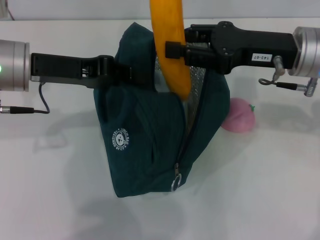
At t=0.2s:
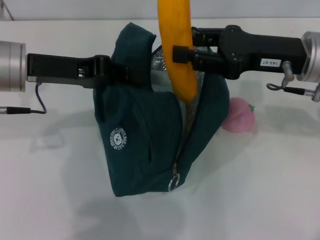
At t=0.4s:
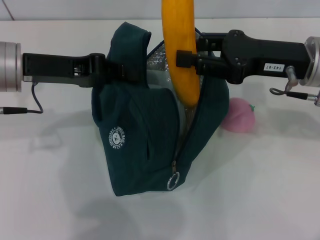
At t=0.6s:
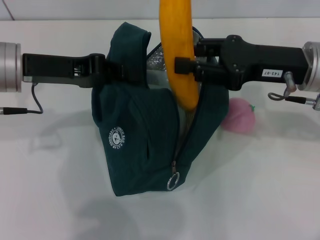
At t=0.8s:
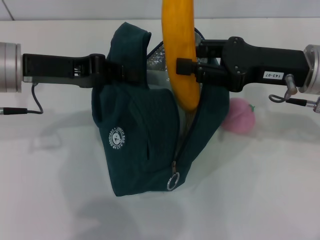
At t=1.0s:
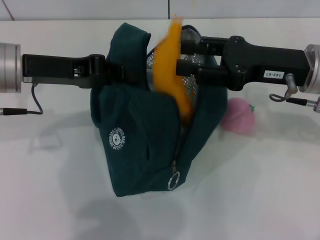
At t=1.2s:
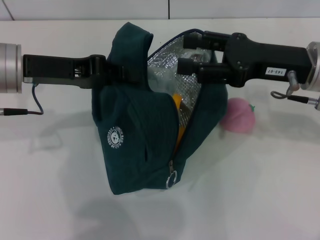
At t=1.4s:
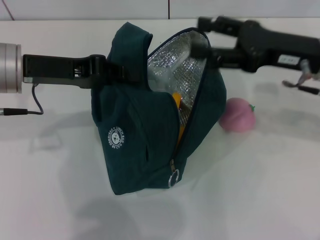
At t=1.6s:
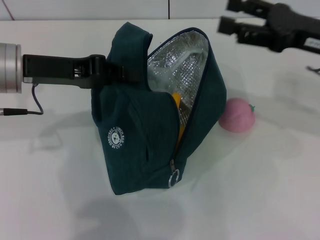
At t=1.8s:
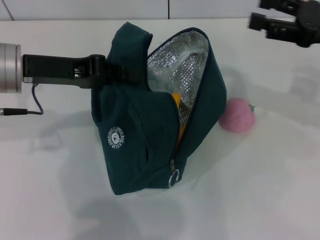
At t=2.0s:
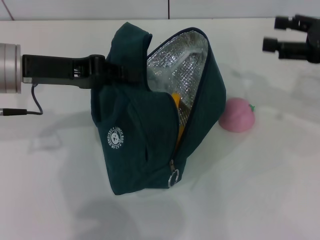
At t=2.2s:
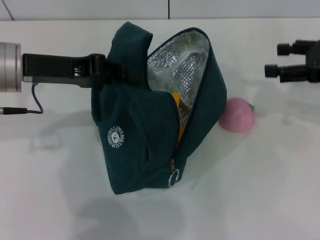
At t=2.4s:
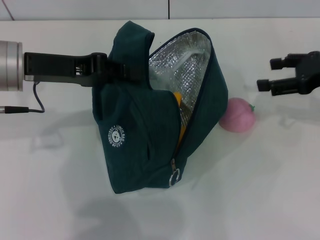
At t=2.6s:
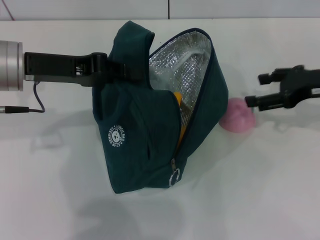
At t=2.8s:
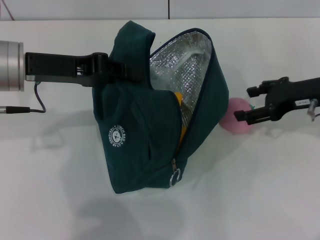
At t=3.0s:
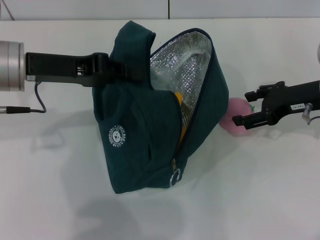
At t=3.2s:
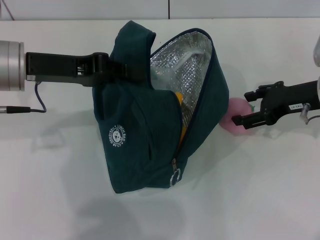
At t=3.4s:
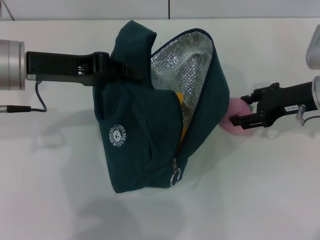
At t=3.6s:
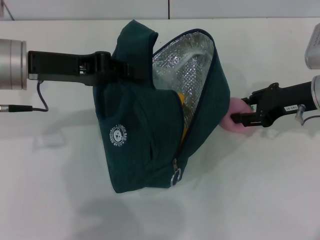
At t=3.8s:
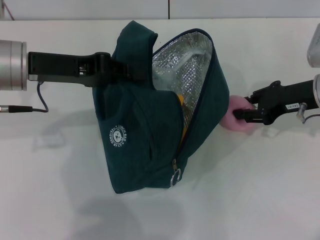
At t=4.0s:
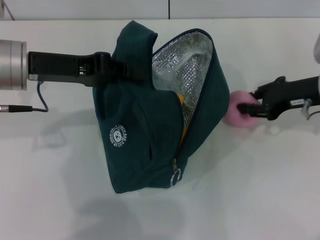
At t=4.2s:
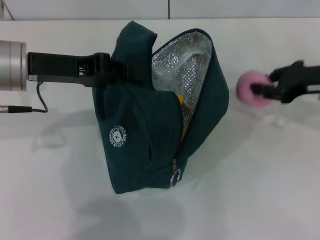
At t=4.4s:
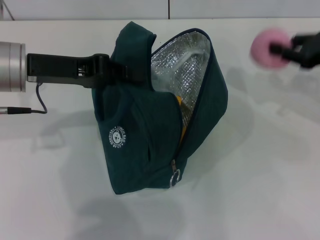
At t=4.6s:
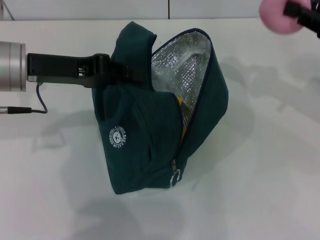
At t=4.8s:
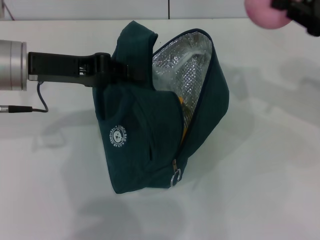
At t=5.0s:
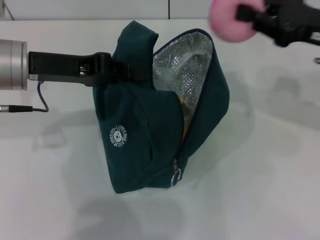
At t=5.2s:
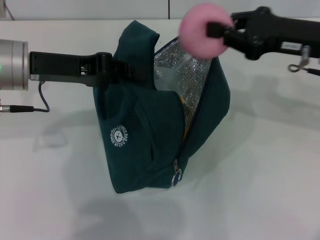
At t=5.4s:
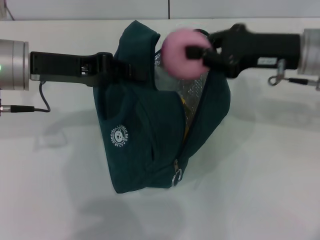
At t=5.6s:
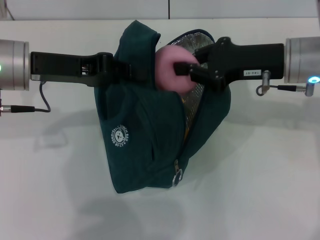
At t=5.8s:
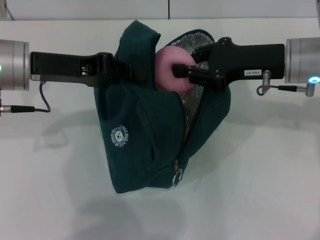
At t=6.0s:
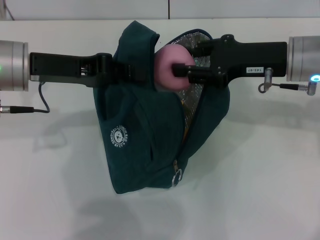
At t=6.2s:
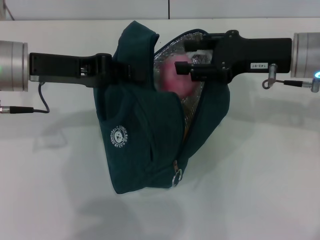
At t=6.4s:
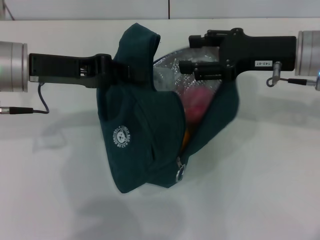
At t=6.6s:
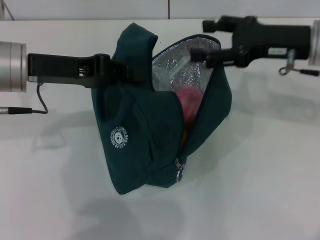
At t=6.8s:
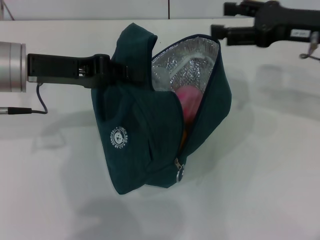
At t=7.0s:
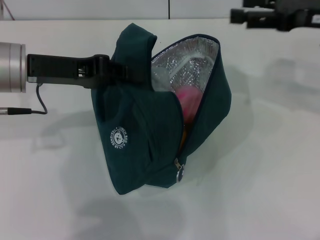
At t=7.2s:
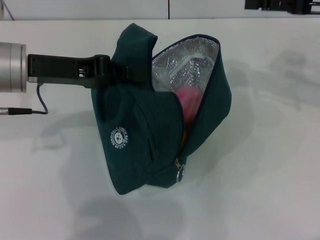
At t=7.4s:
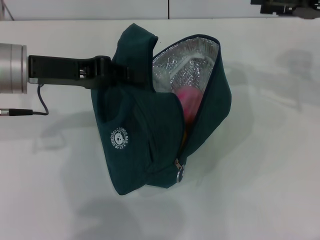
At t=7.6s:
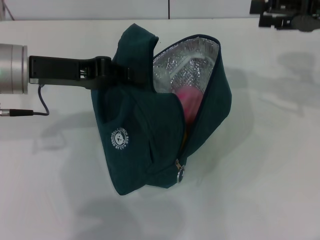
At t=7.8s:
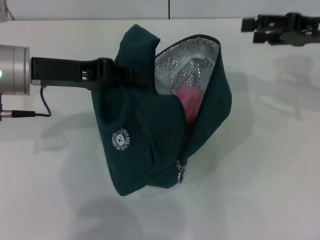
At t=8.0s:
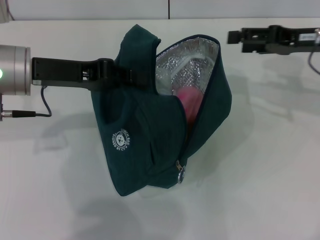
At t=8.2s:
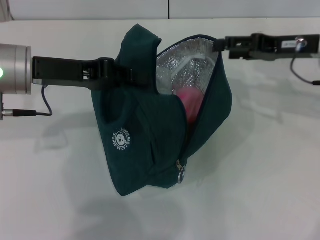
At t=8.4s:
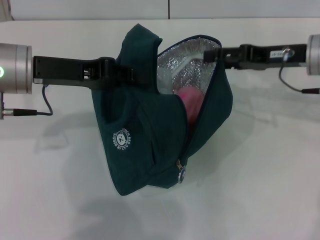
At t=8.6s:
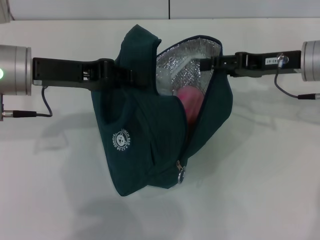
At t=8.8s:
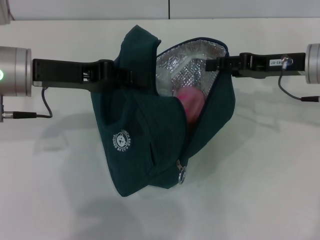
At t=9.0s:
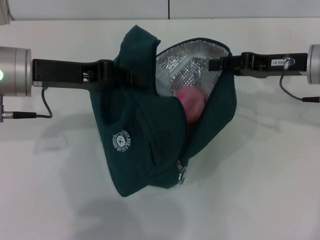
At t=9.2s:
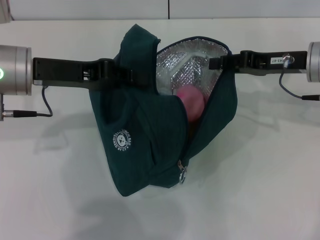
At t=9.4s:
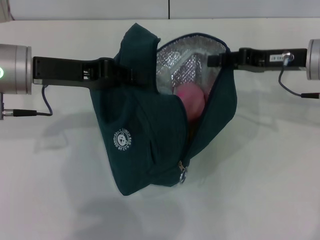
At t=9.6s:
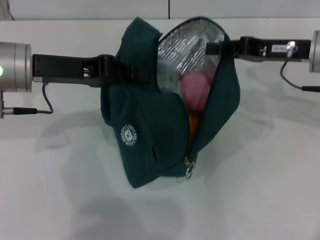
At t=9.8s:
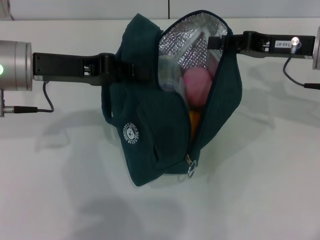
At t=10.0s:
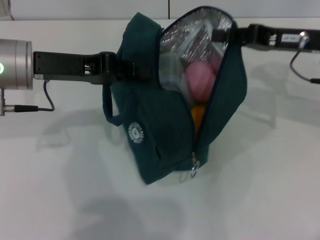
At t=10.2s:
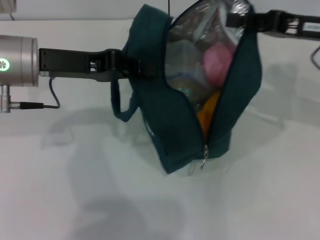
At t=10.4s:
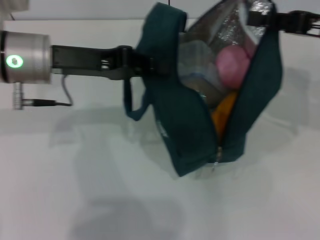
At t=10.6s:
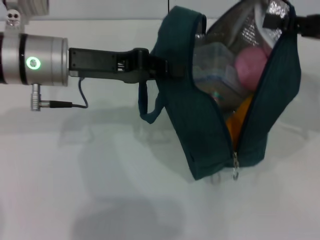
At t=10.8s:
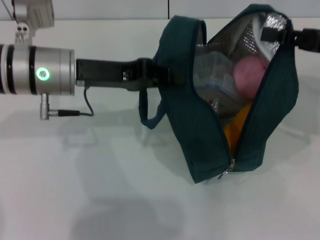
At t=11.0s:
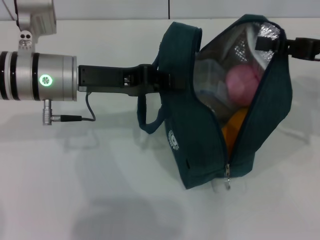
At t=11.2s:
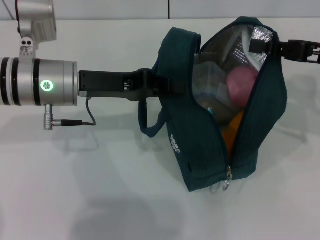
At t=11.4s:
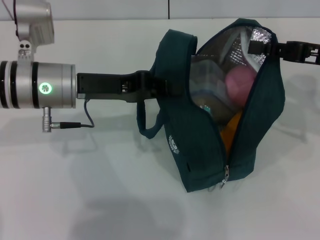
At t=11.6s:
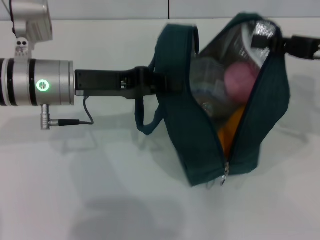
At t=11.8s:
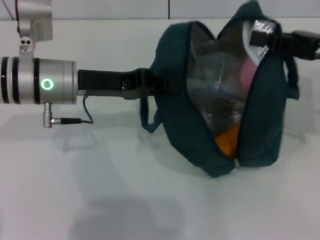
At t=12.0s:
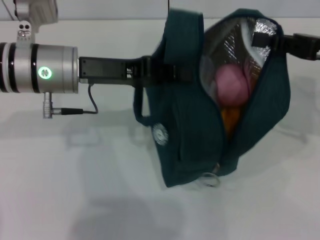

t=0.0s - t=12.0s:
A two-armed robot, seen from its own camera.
Step, t=1.6s - t=3.6s: Grab the peach with your right hand.
t=0.0s - t=1.6s: The right gripper heads to the right, covering about 5 cm, and opens its fingers.
t=1.6s - t=3.0s: The right gripper shifts roughly 5 cm downward.
t=3.0s - t=4.4s: The right gripper heads to the right, covering about 5 cm, and closes up.
t=4.4s - t=6.0s: The right gripper moves to the left, approximately 10 cm.
t=6.0s - t=7.6s: The right gripper heads to the right, covering about 10 cm, and opens its fingers.
t=7.6s - t=9.0s: The right gripper is displaced downward and to the left by some 10 cm.
t=9.0s - t=10.4s: The right gripper heads upward, covering some 5 cm, and closes.

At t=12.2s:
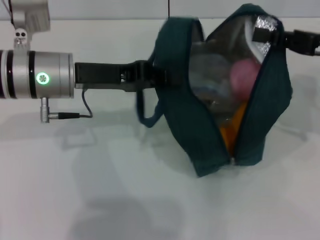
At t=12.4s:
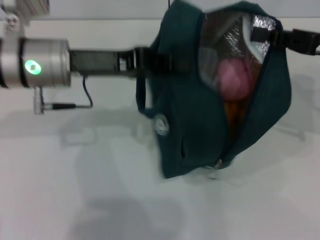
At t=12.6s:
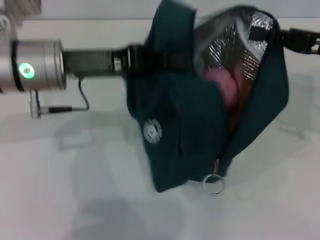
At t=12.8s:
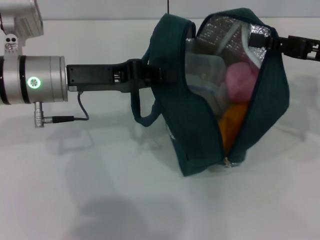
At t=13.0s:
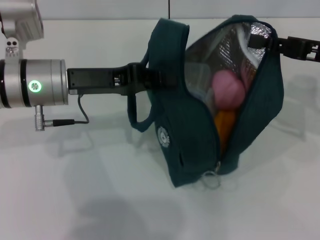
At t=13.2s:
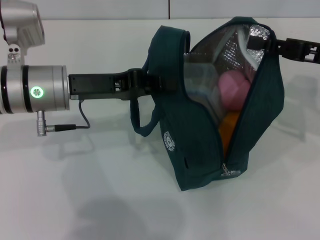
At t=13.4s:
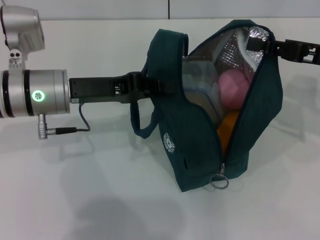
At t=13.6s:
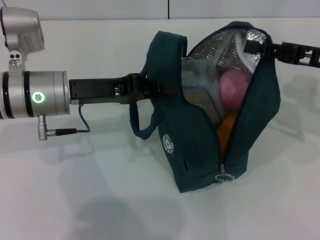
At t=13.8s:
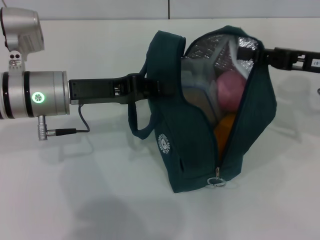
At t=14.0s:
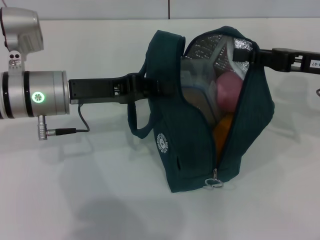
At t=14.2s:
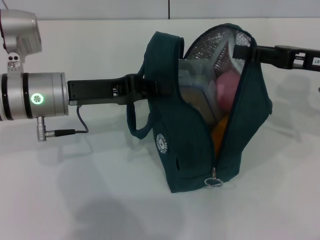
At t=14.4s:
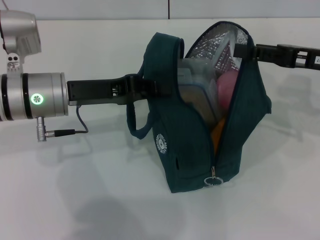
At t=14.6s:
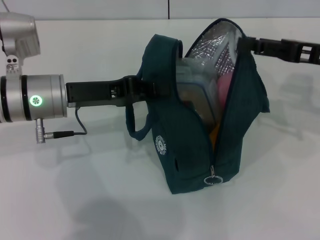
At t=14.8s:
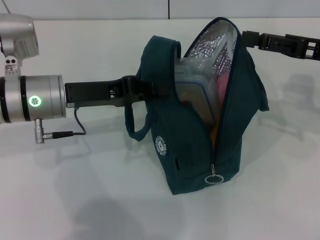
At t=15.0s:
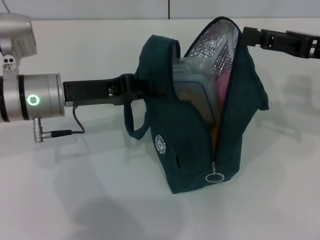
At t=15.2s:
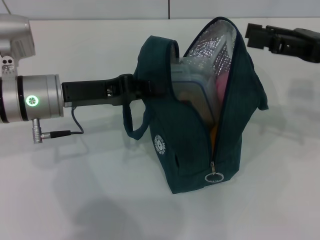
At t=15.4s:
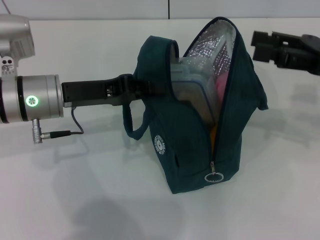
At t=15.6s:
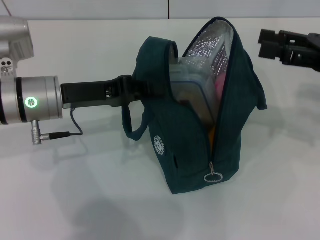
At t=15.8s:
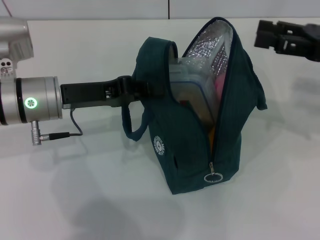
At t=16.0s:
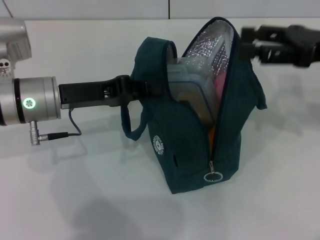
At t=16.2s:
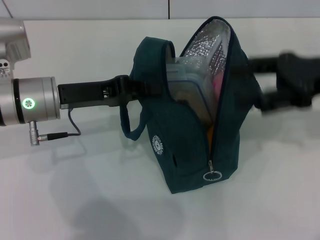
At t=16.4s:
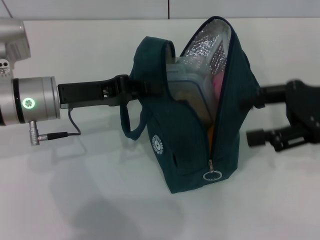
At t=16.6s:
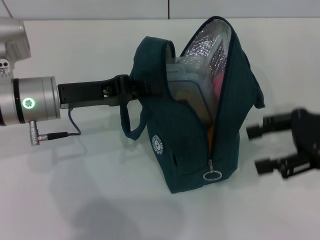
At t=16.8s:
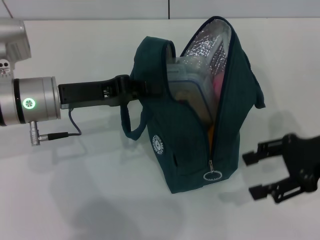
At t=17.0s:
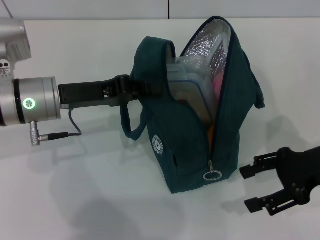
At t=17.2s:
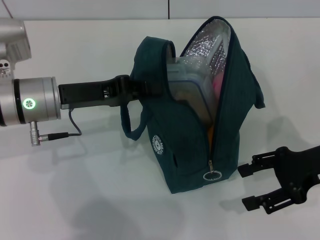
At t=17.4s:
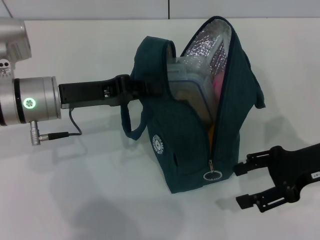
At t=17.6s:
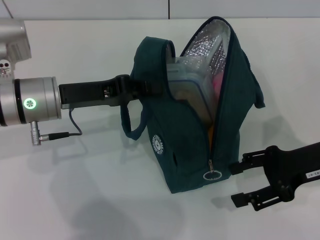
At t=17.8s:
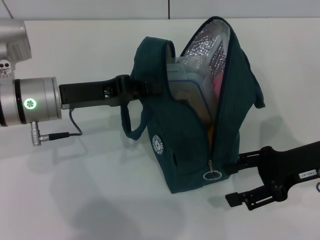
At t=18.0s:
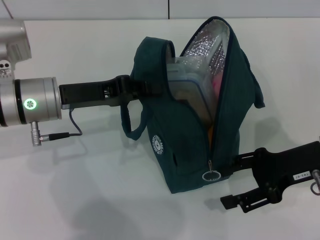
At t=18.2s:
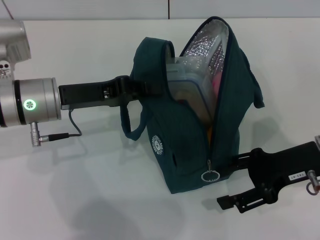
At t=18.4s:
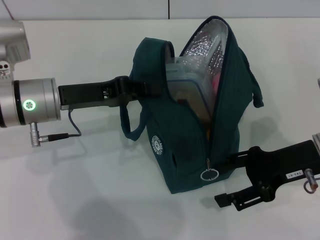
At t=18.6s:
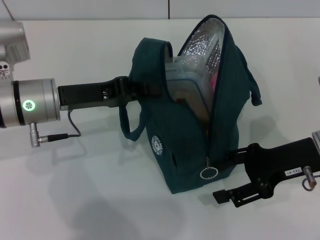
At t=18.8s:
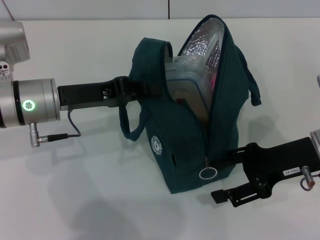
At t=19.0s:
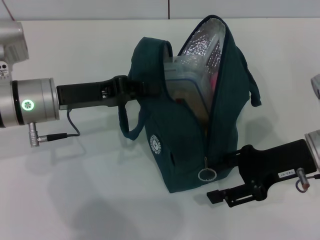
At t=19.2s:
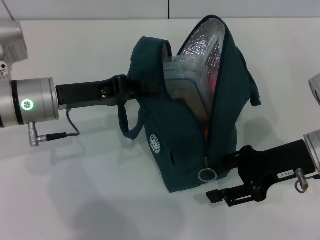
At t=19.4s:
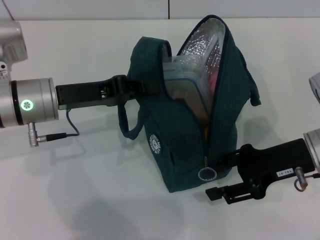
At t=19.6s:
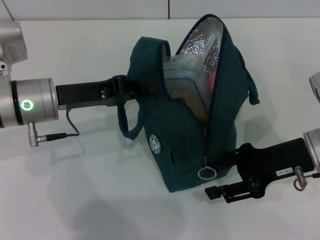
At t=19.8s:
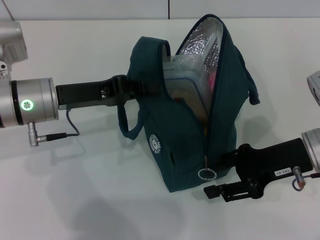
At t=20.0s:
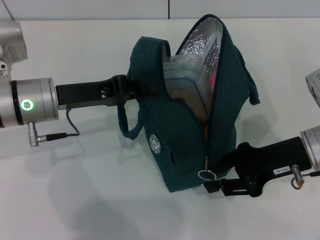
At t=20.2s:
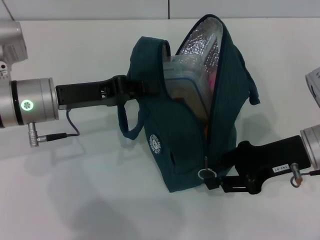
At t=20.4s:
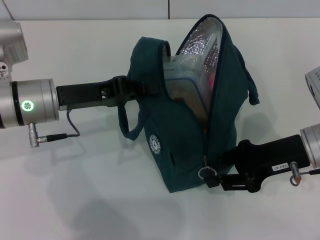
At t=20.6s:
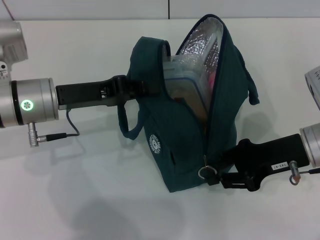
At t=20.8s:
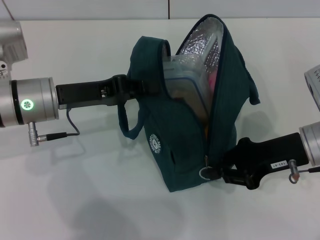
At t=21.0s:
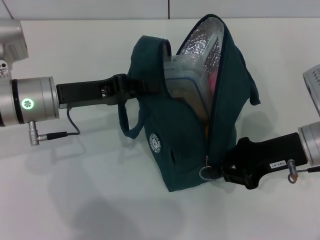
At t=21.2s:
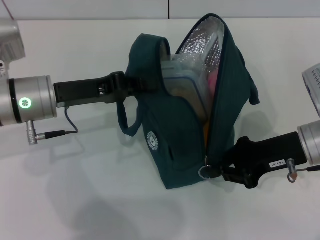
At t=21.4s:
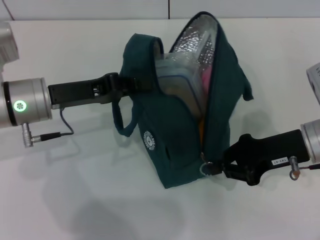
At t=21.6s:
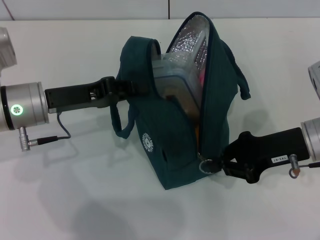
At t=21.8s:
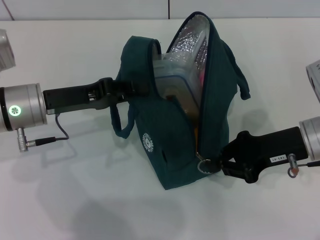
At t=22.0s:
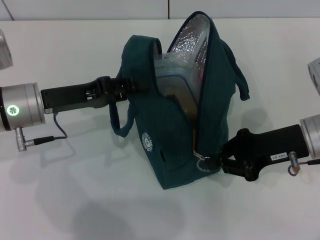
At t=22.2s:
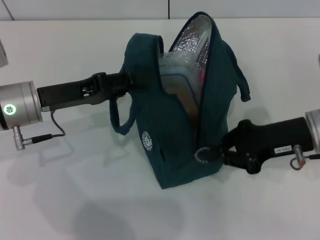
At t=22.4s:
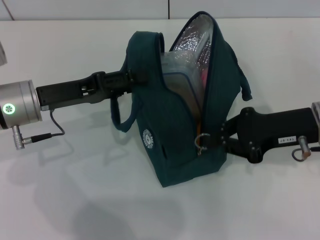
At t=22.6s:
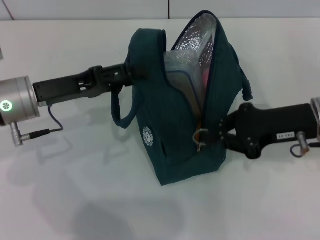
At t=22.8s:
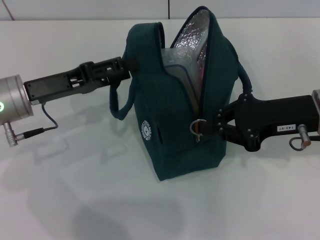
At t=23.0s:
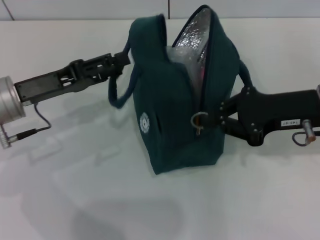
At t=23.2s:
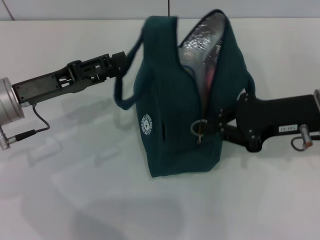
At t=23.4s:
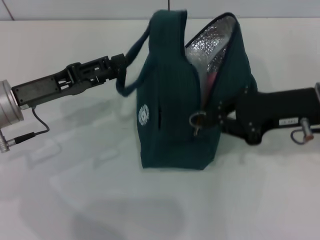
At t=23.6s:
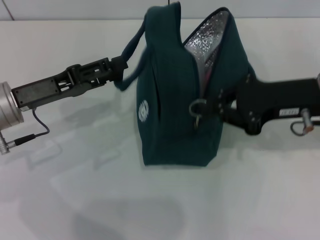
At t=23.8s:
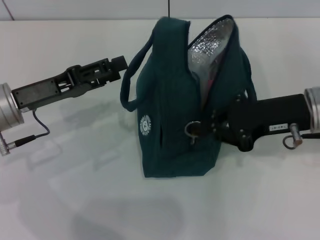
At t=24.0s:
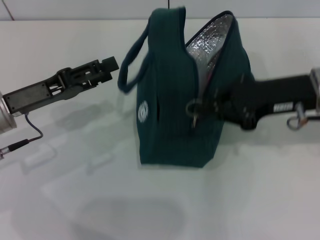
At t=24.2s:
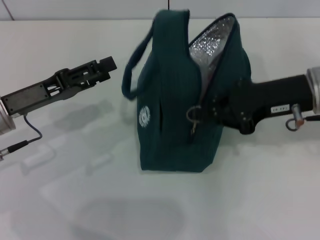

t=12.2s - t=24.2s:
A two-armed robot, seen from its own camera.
Step, t=12.2s - t=14.8s: Hold the lunch bag with your right hand.
Step, t=15.0s - t=24.2s: Hold the lunch bag with your left hand.
t=13.8s - t=15.2s: The right gripper opens.
t=16.6s - t=18.2s: The right gripper goes some 5 cm downward.
t=18.2s - t=19.8s: The grippers move only a little.
t=19.8s - t=21.2s: The right gripper closes.
t=21.2s - t=22.6s: The left gripper opens up.
